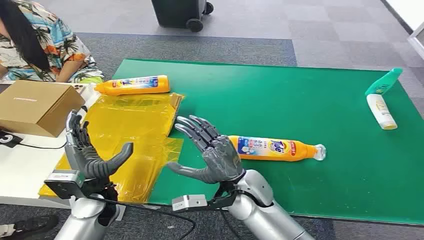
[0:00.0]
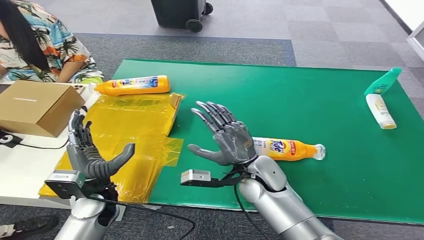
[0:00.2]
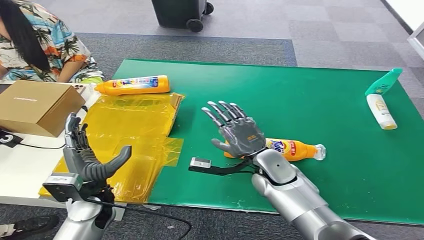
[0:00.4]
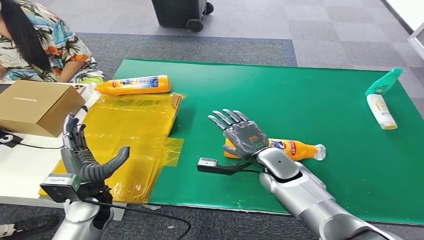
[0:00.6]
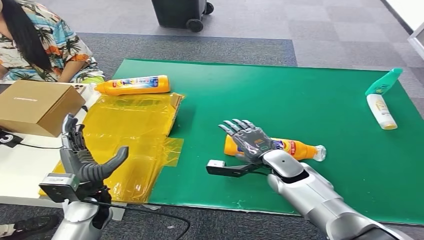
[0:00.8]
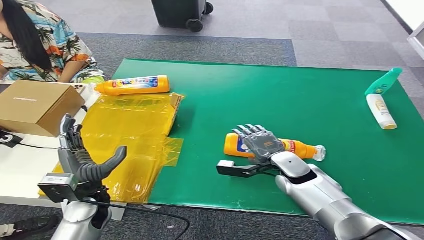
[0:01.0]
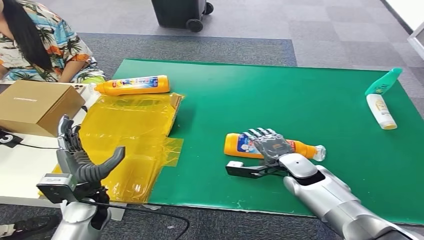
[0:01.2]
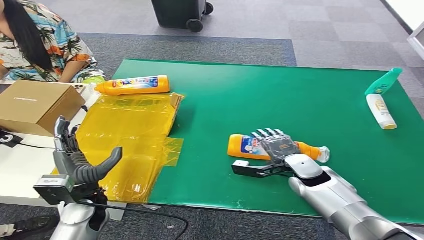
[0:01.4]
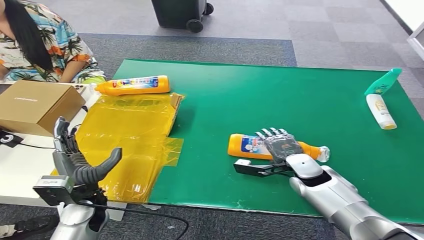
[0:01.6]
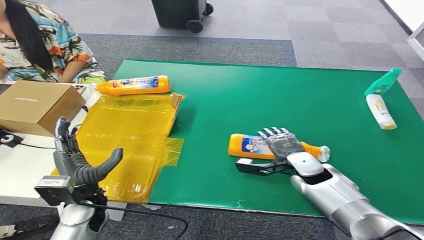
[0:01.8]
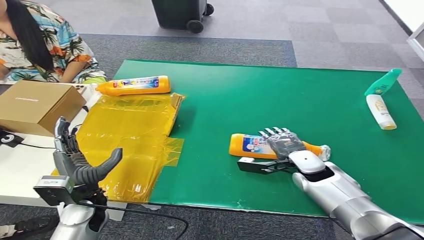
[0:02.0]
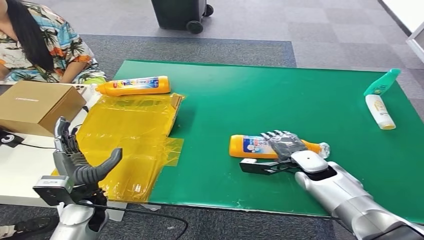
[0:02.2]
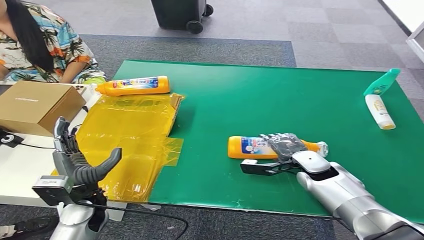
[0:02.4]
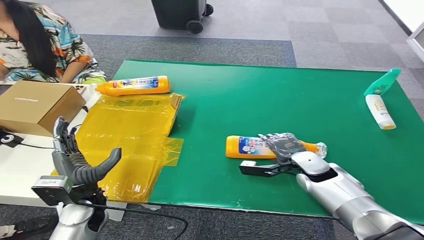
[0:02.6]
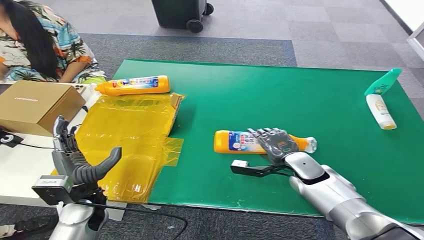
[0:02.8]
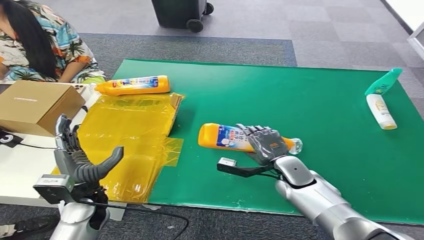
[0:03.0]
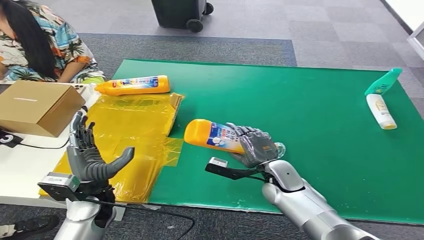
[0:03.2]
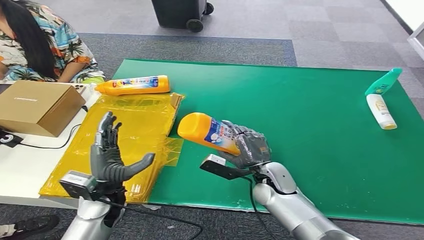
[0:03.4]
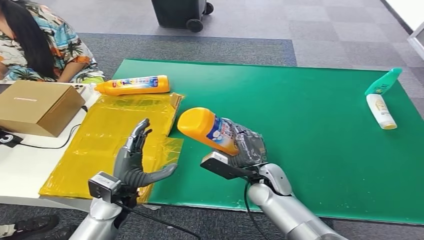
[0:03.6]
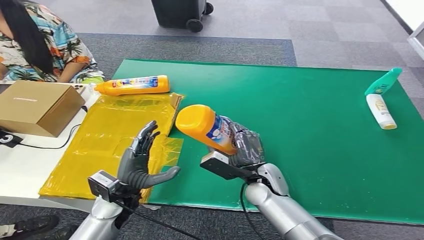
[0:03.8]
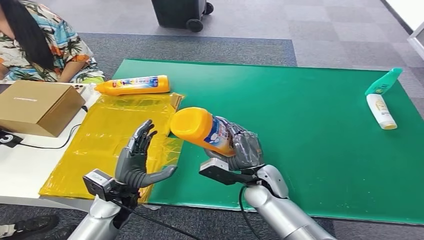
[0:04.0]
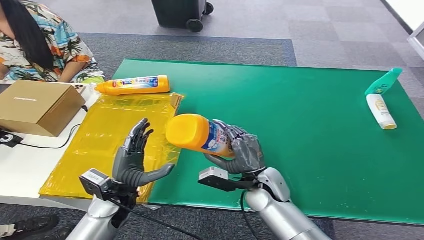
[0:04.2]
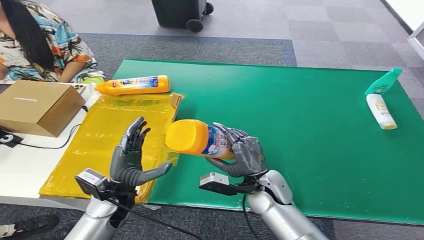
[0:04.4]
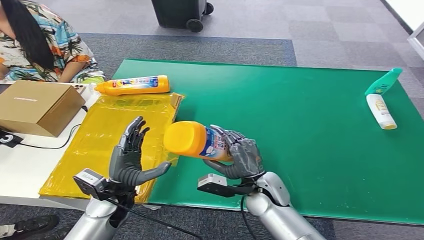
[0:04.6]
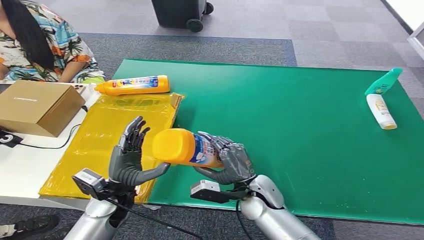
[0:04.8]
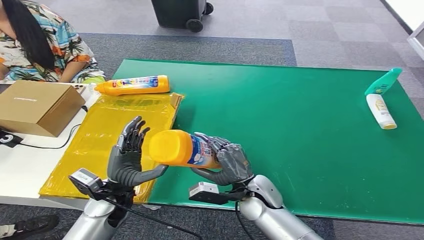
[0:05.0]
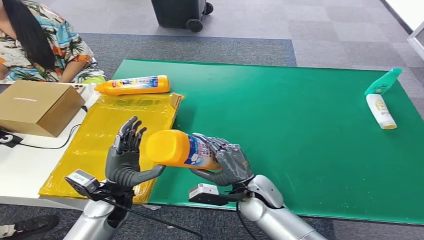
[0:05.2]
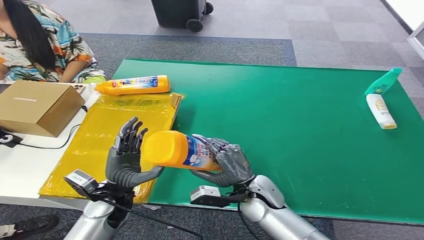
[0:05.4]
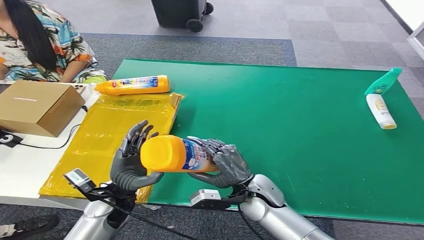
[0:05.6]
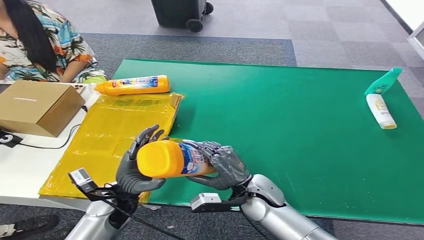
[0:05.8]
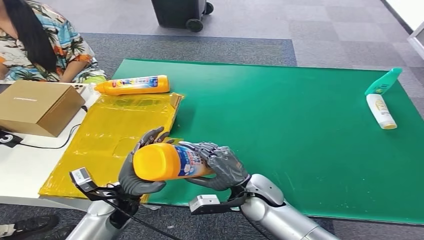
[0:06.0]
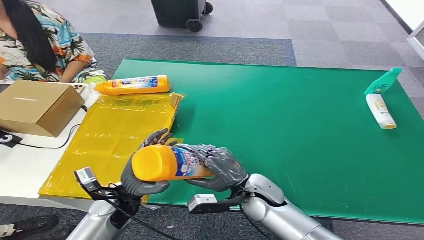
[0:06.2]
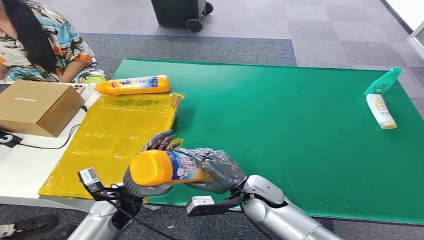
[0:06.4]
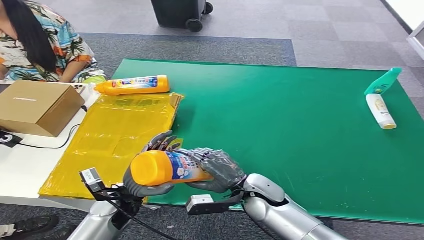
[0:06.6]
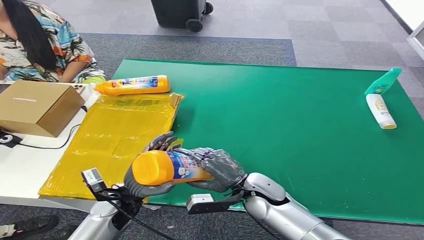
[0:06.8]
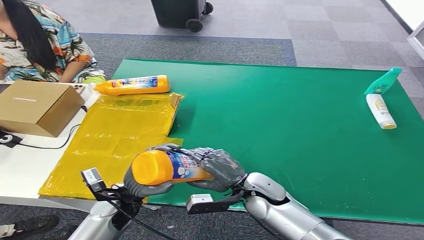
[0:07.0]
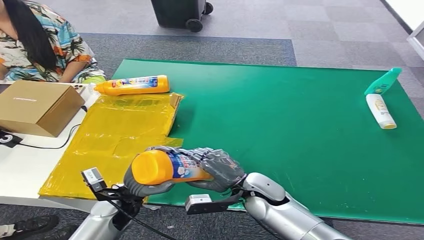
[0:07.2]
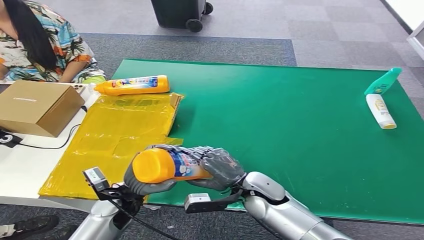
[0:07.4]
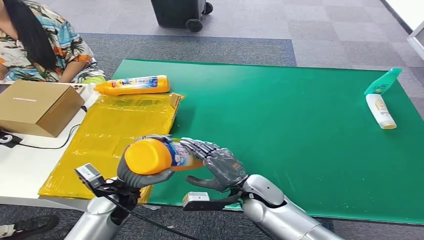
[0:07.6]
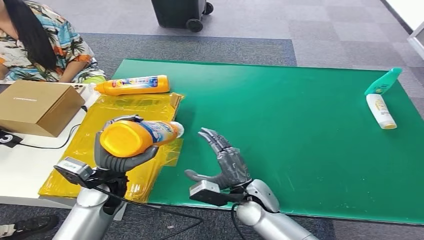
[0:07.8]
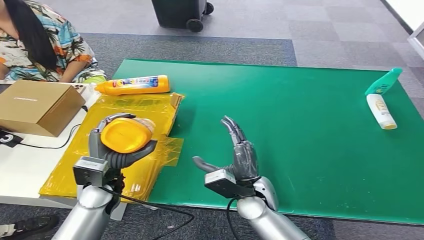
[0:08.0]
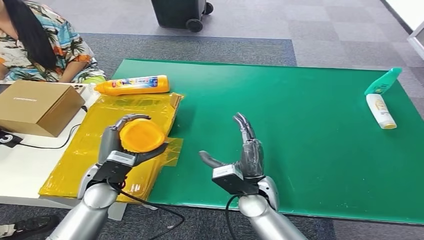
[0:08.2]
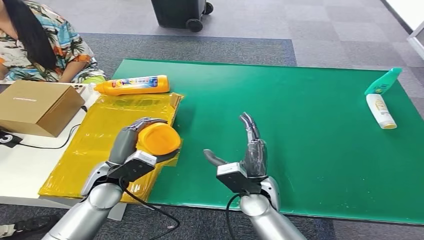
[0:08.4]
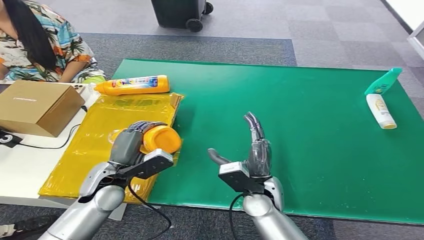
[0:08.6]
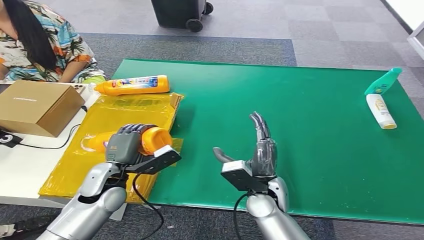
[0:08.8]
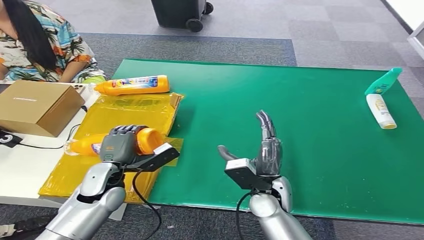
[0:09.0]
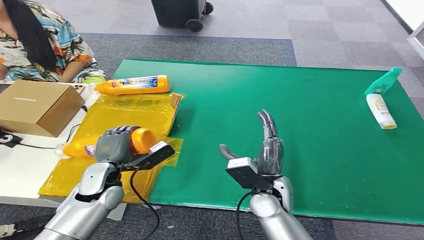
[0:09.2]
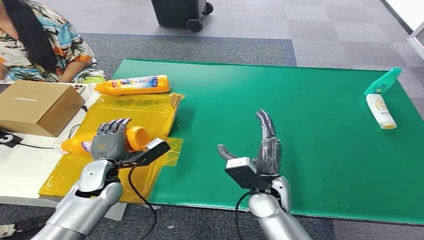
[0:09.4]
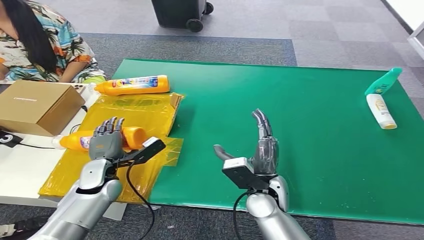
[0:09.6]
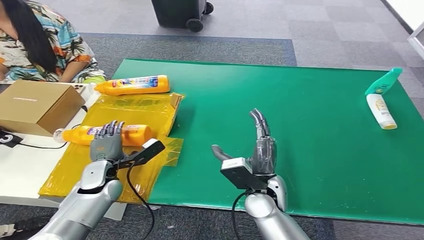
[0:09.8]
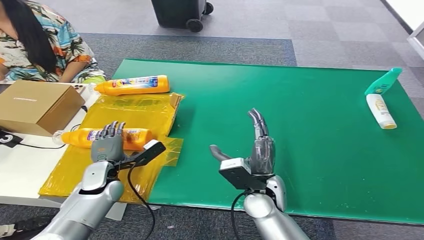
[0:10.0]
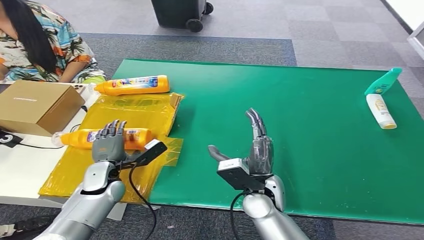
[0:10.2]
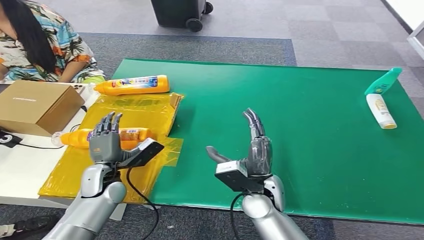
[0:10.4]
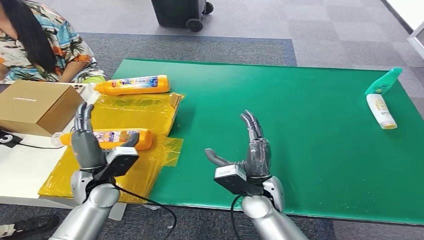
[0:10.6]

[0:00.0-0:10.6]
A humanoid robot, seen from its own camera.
Step, 0:00.0 to 0:03.8: Pick up the bottle from the table.
Step, 0:04.0 to 0:10.6: Turn the bottle to the front side.
0:06.0 to 0:07.6: There are only small adjustments of the hands.

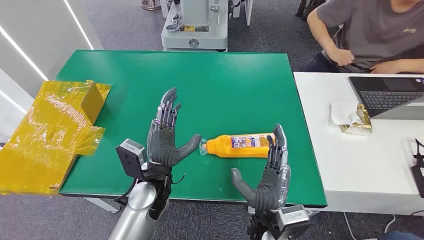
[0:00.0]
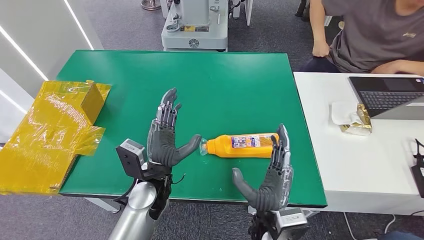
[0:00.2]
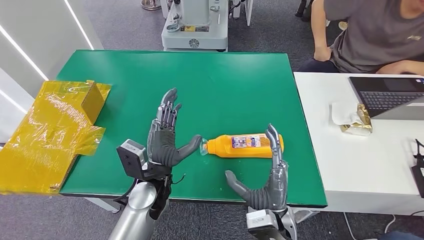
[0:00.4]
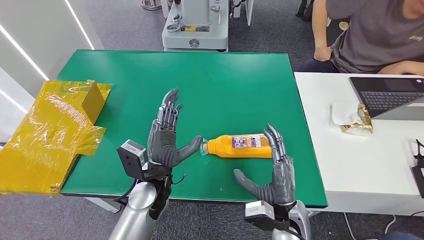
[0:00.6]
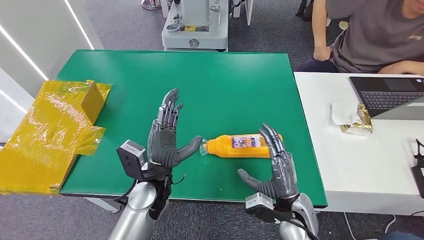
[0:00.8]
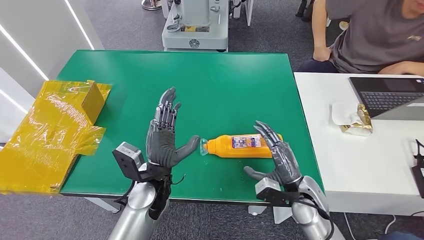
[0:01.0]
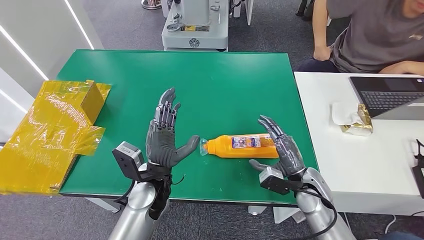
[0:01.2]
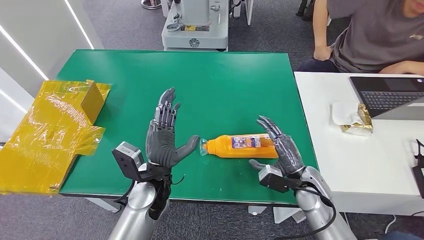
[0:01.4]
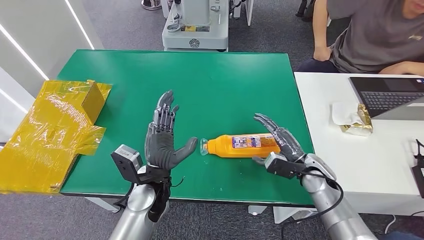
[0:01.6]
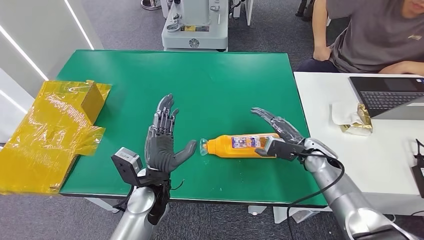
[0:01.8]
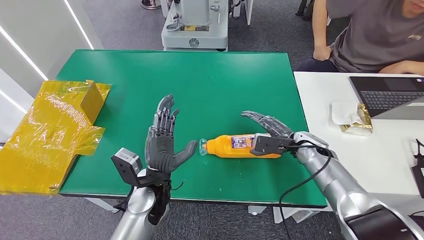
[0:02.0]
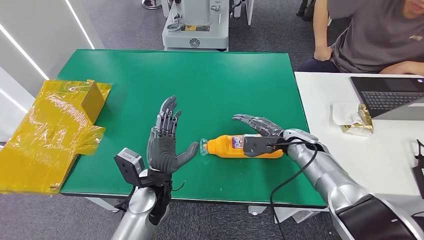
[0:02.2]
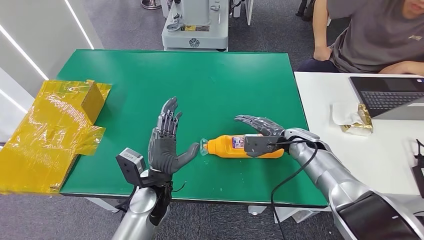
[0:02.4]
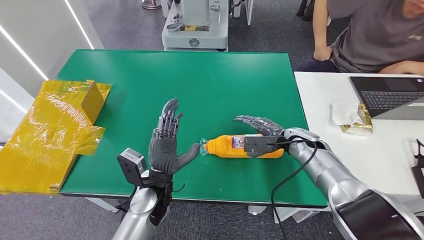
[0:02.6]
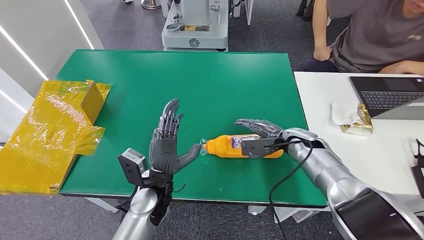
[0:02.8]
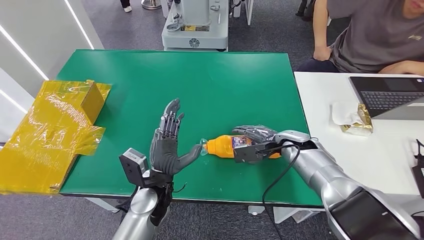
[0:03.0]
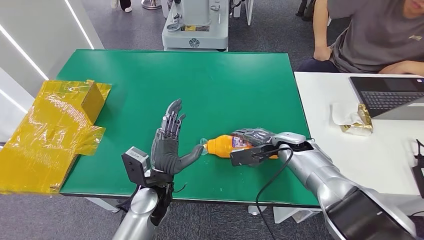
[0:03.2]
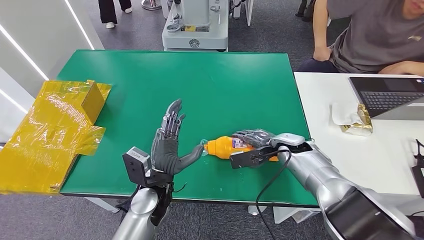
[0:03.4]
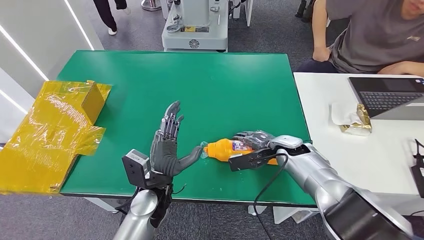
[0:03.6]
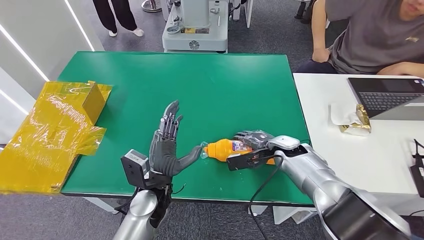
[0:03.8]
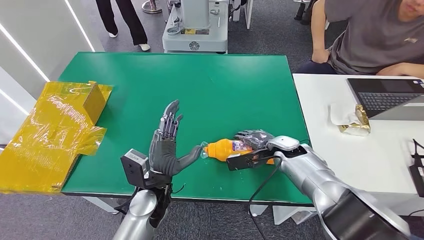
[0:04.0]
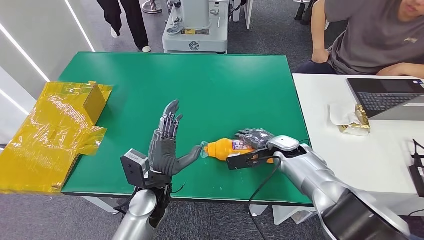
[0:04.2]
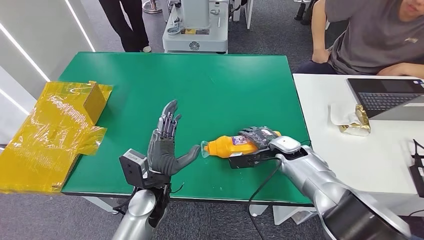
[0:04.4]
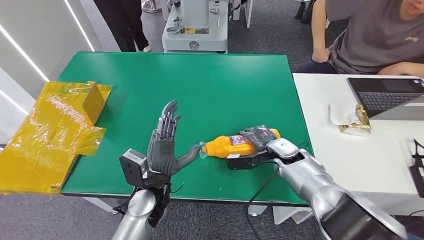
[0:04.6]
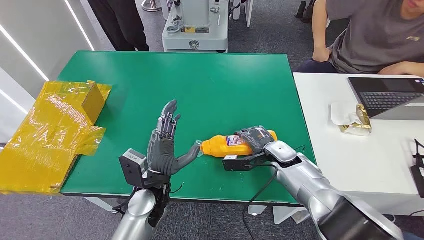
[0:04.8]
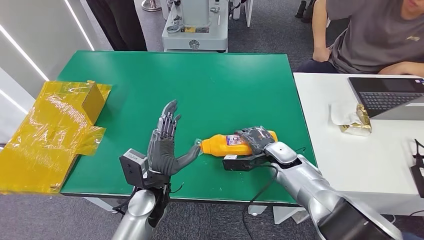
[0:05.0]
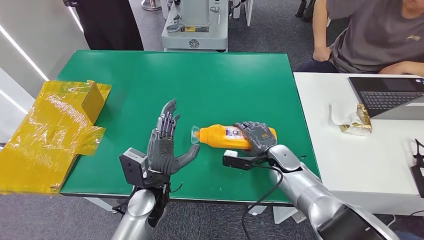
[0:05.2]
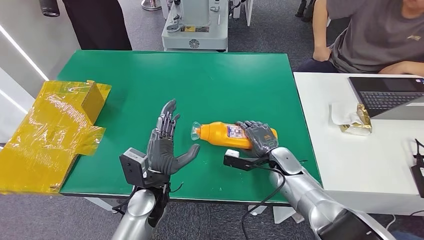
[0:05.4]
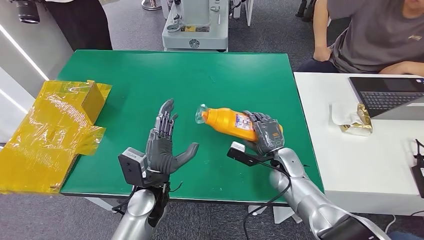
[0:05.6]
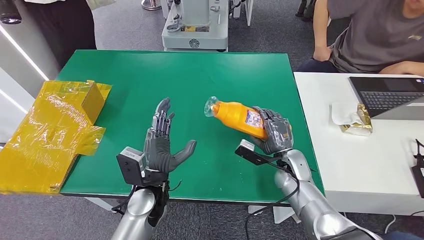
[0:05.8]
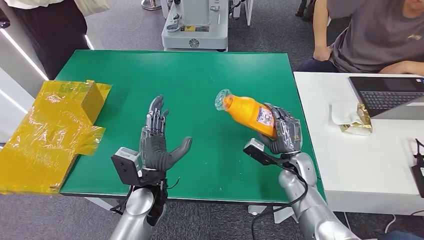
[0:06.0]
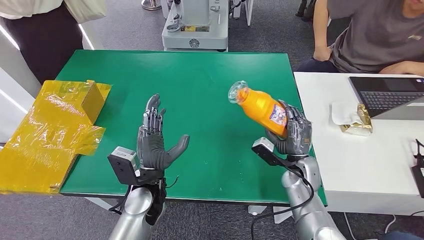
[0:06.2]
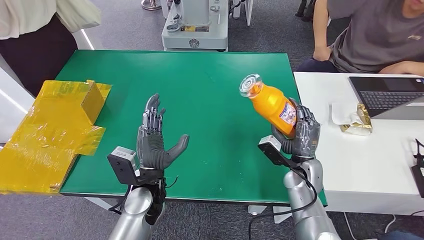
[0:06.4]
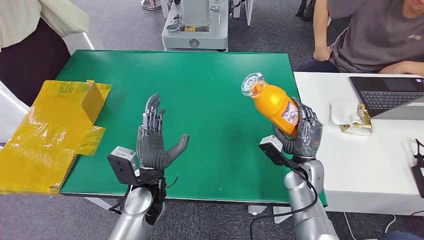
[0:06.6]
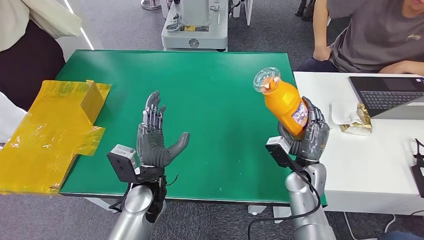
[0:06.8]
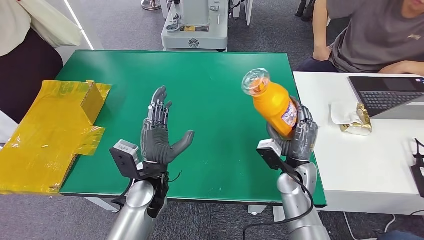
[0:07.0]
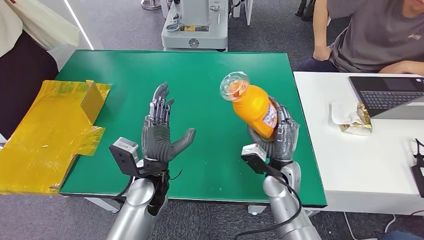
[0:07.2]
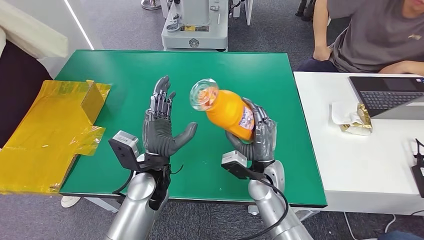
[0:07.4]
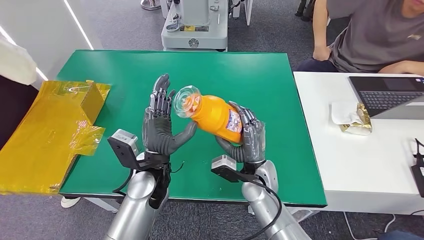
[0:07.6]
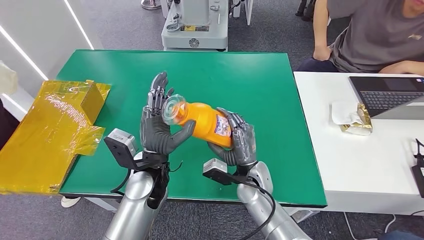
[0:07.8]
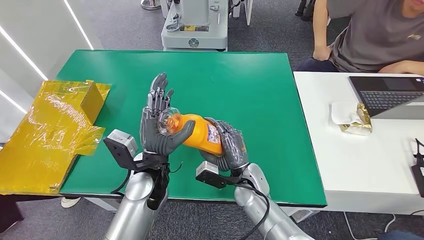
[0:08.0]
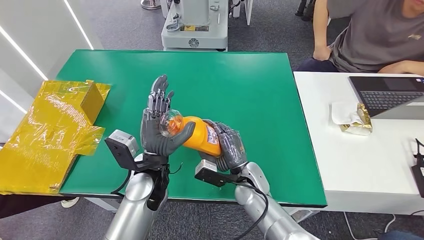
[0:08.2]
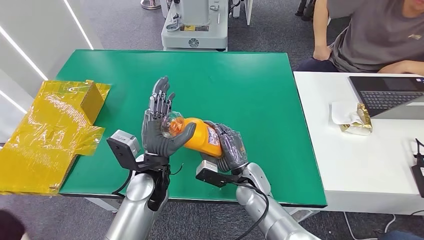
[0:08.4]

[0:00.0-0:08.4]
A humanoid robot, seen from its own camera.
Step, 0:00.0 to 0:06.8: Pick up the bottle from the table.
0:01.4 to 0:02.8: The right hand shifts some 10 cm forward.
